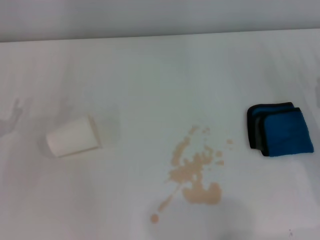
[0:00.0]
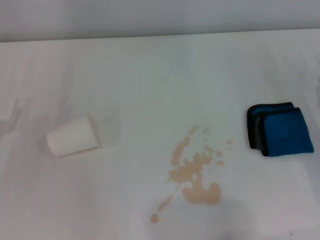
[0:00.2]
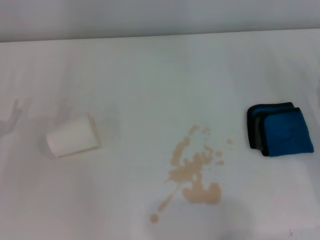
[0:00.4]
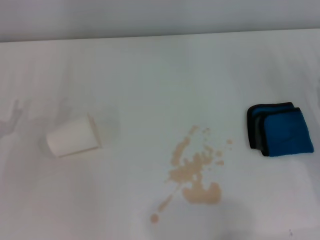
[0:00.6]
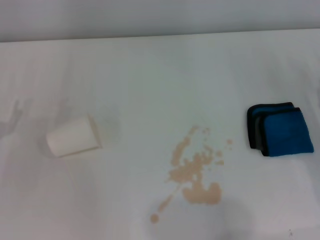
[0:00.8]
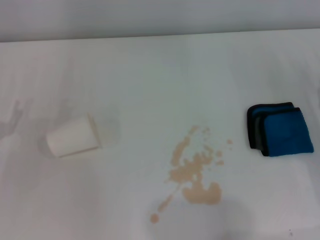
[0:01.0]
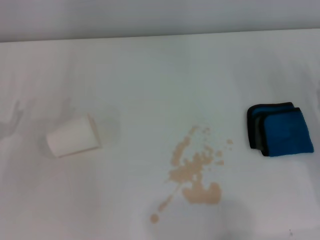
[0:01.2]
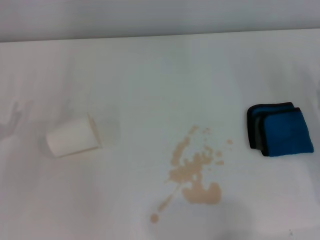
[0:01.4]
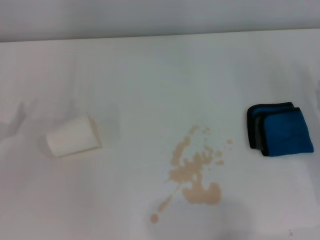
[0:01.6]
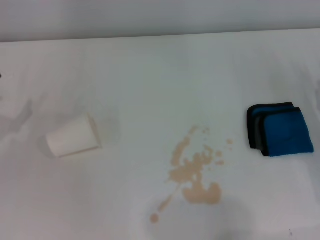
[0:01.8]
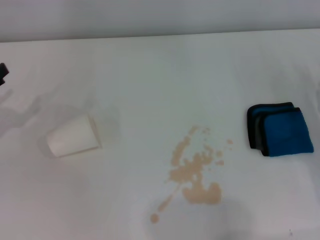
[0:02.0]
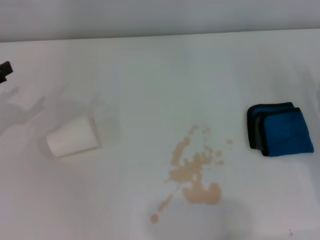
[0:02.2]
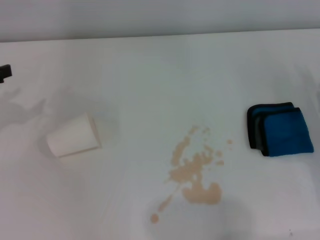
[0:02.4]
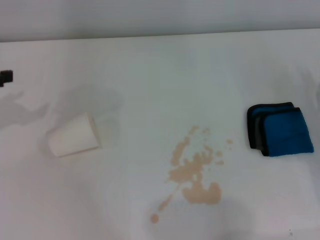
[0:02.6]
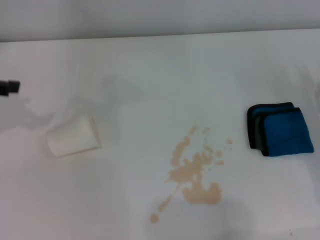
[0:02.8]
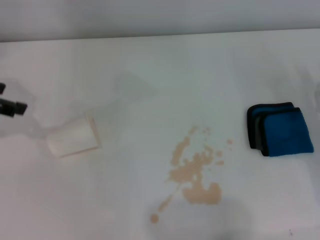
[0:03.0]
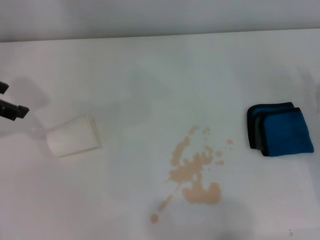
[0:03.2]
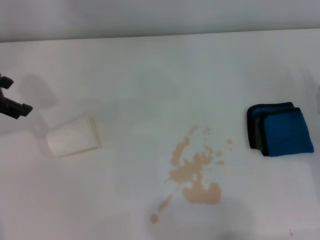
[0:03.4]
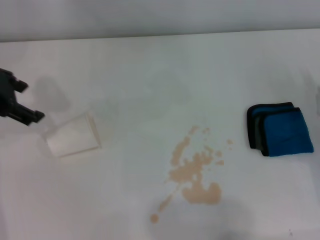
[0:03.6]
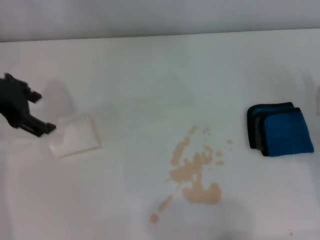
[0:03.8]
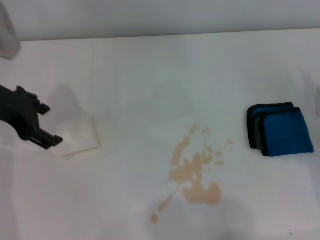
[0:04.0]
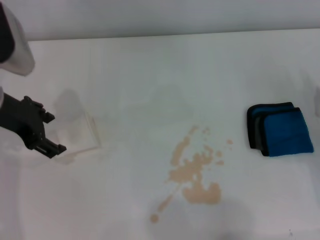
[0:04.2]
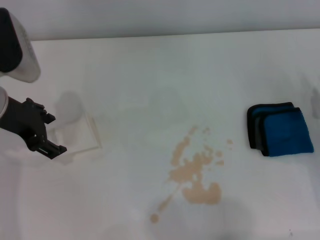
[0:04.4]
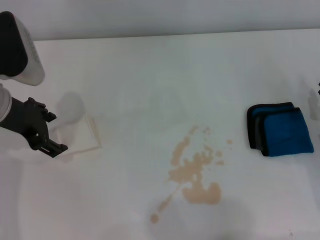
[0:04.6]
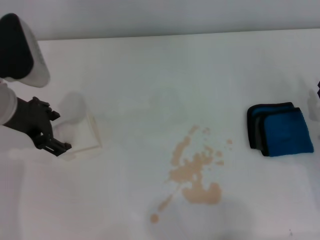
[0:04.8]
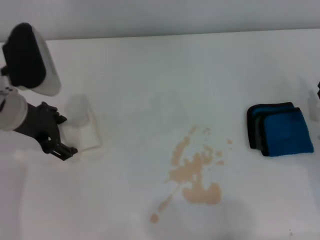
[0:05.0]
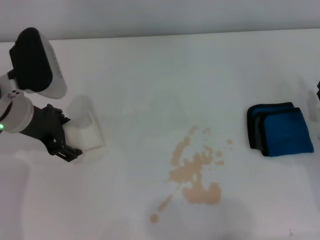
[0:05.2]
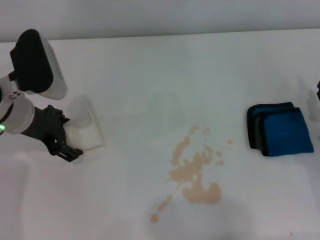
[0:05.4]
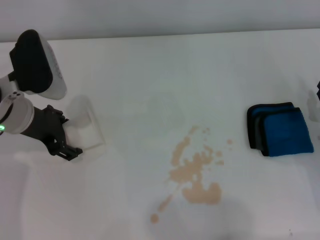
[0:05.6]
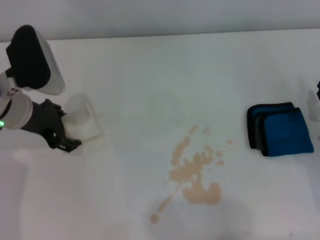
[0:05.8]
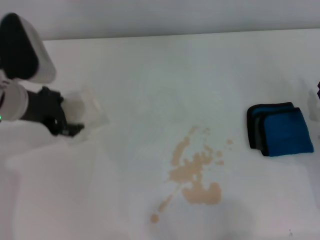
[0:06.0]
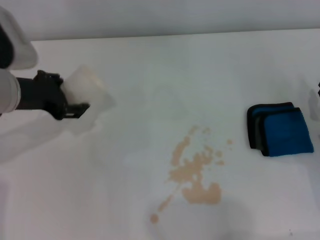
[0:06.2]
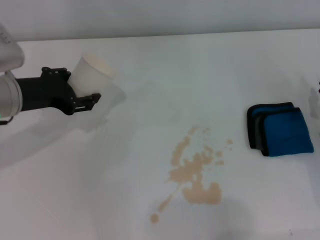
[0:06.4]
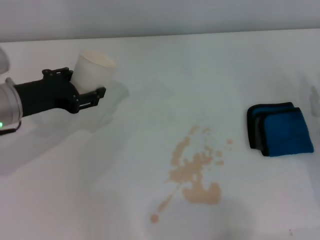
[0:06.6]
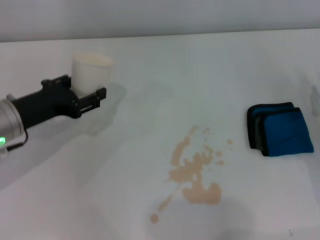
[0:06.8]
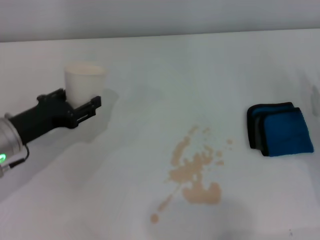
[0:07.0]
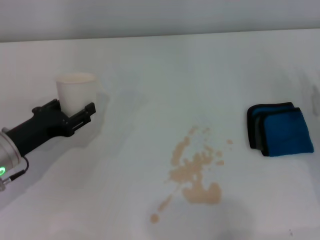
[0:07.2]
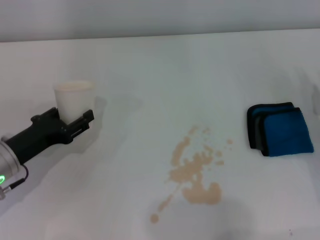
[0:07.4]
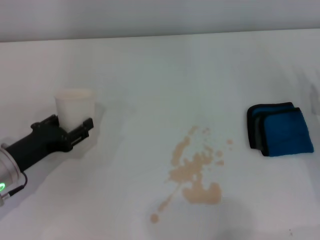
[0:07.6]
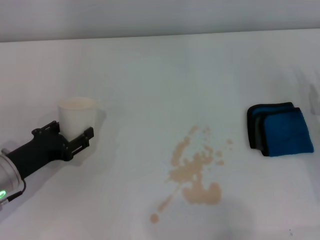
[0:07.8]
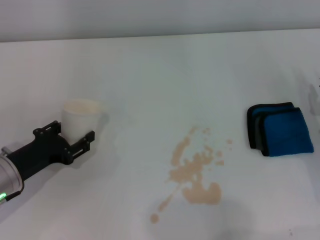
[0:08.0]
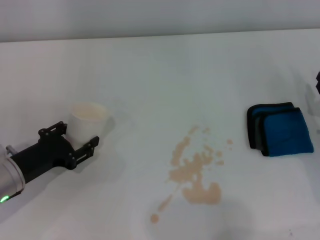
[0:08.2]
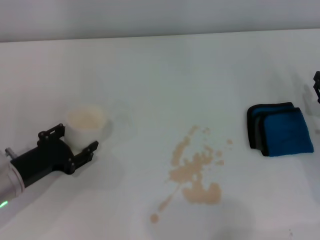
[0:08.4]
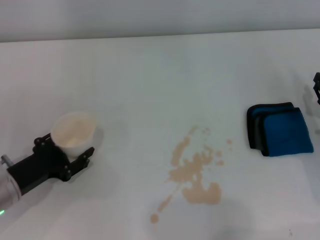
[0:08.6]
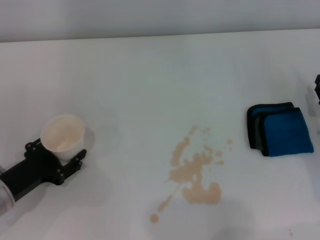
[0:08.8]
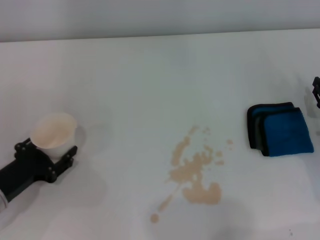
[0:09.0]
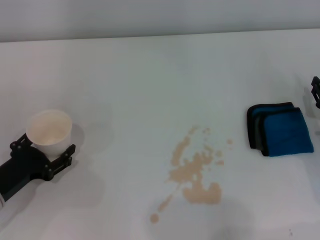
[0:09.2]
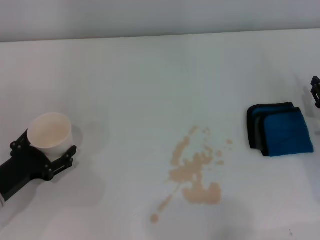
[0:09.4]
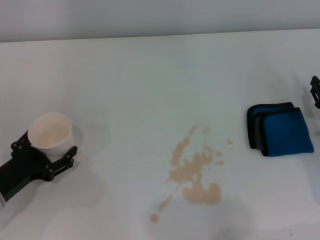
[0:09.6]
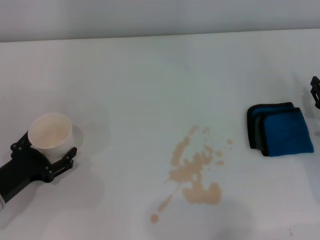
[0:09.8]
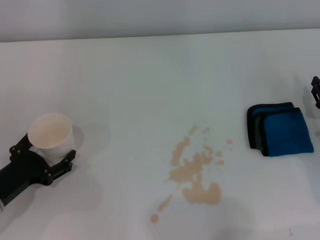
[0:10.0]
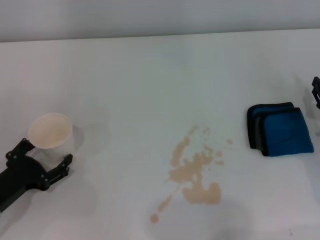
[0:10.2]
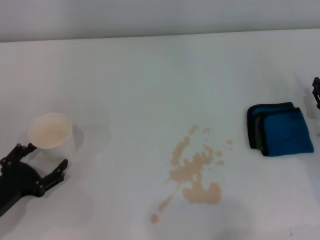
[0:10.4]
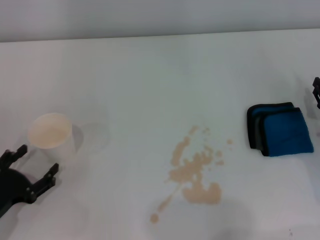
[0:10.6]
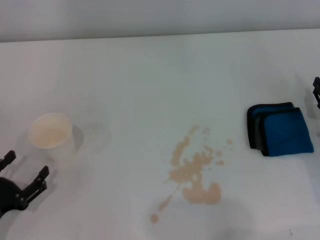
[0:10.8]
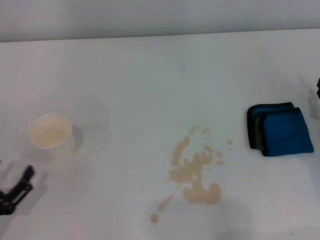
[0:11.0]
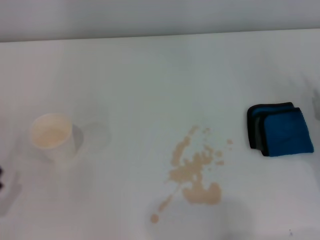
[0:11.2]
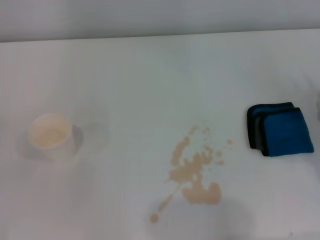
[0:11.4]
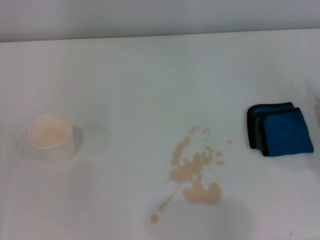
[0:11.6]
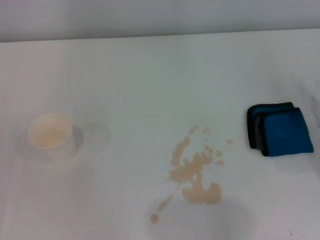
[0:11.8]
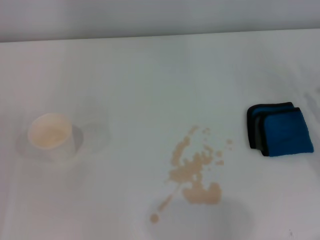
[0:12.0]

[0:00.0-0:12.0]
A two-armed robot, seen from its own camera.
Step, 0:00.0 to 0:05.4: Grasp the paper cup with the left gripper.
Step, 0:05.6 to 0:10.2: Stand the paper cup upright with the left gripper.
0:01.6 to 0:03.0: The left gripper goes some 20 cm upward and forward.
0:03.0 to 0:04.4: The left gripper is displaced to the right and downward by some 10 cm.
0:04.4 to 0:06.0: The left gripper closes up.
0:06.0 to 0:07.6: The left gripper shifts some 15 cm downward and backward.
0:07.6 to 0:09.0: The left gripper ends up approximately 5 cm from where it was.
0:09.0 to 0:10.4: The left gripper opens its fingers.
0:10.4 to 0:12.0: The left gripper is displaced to the left by some 5 cm.

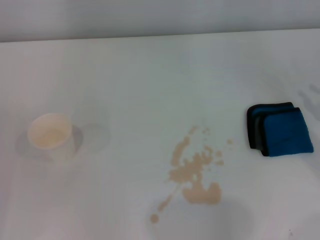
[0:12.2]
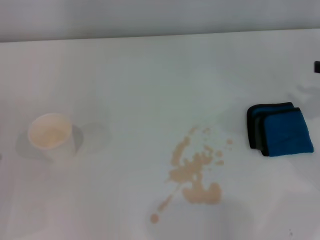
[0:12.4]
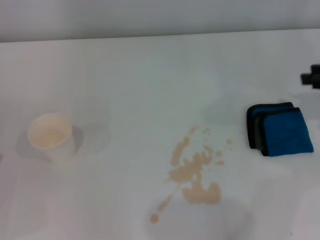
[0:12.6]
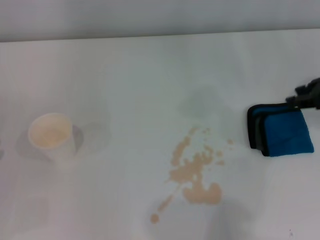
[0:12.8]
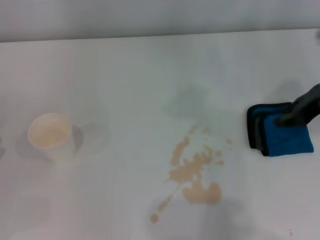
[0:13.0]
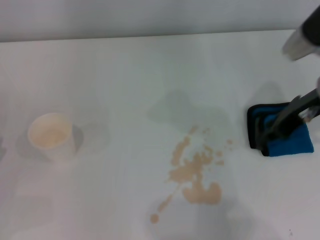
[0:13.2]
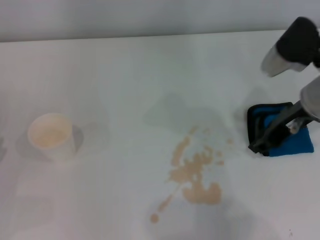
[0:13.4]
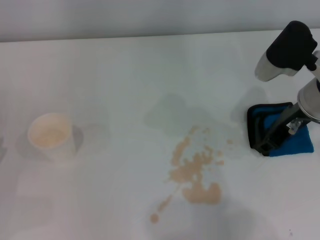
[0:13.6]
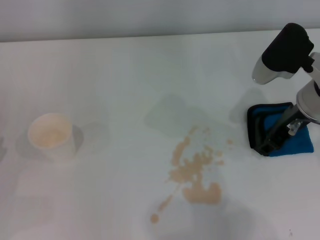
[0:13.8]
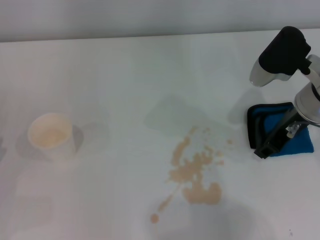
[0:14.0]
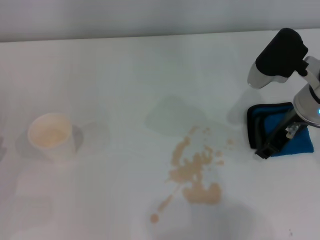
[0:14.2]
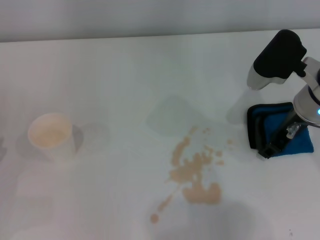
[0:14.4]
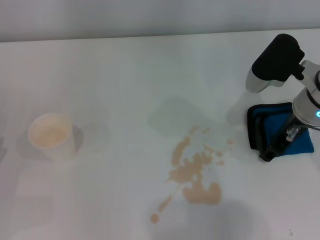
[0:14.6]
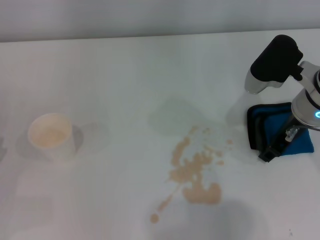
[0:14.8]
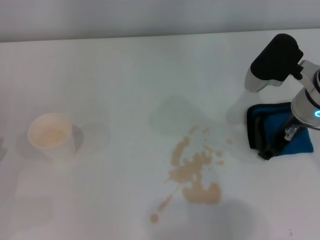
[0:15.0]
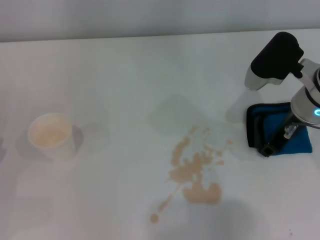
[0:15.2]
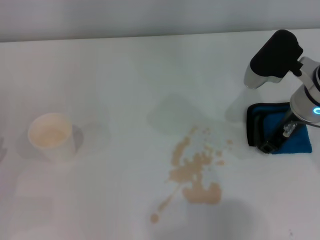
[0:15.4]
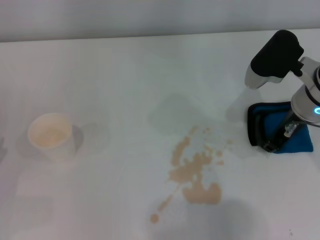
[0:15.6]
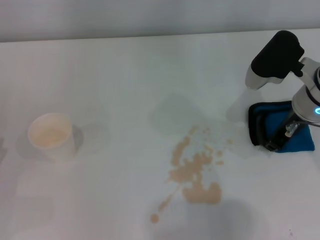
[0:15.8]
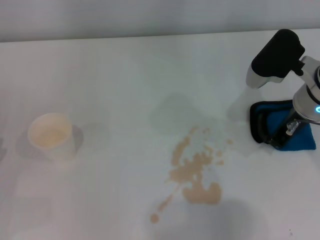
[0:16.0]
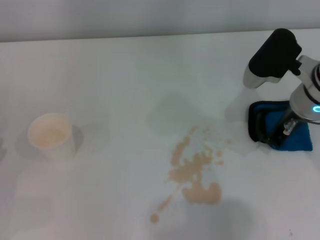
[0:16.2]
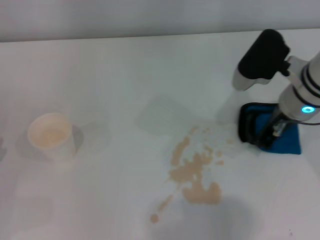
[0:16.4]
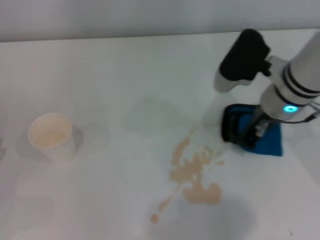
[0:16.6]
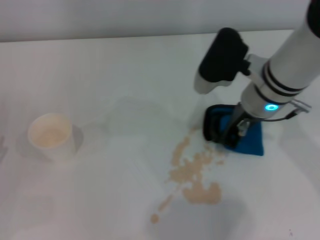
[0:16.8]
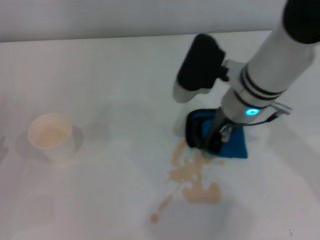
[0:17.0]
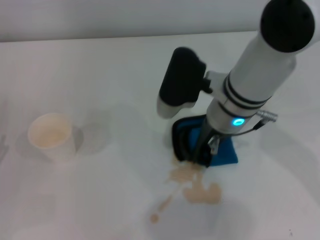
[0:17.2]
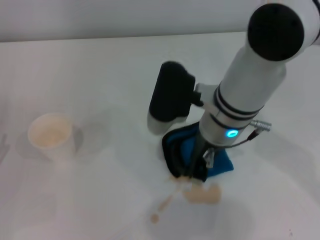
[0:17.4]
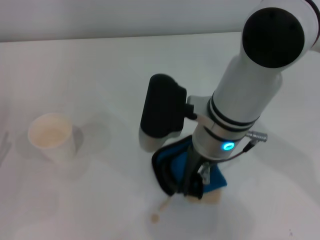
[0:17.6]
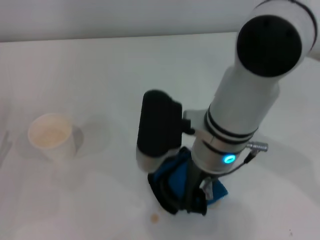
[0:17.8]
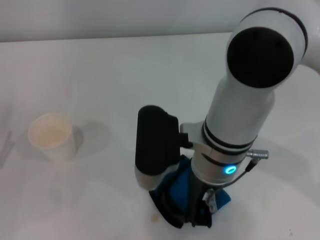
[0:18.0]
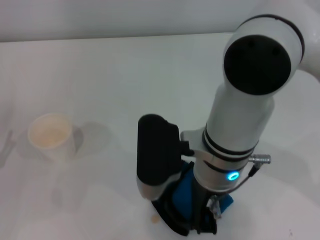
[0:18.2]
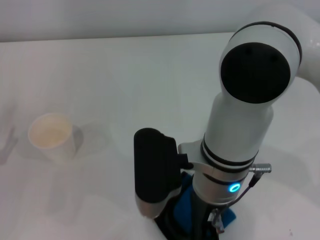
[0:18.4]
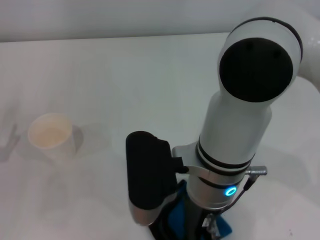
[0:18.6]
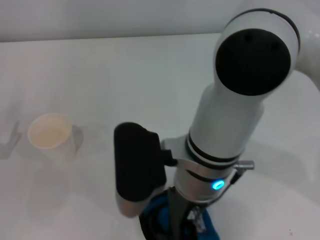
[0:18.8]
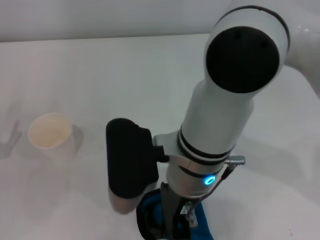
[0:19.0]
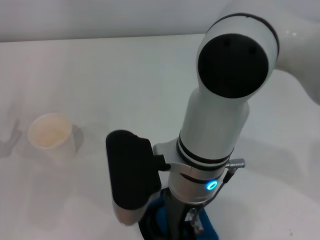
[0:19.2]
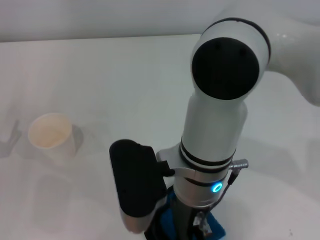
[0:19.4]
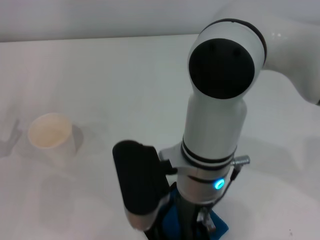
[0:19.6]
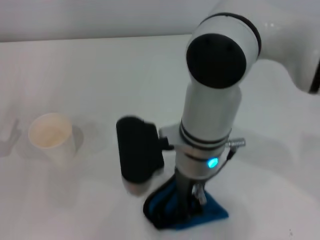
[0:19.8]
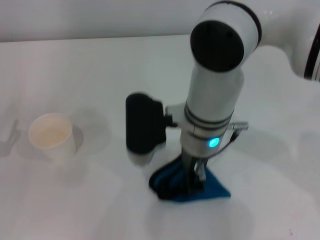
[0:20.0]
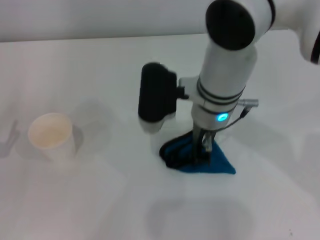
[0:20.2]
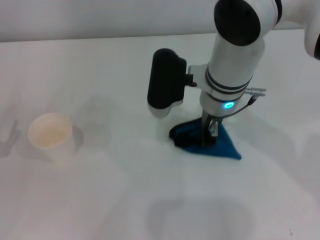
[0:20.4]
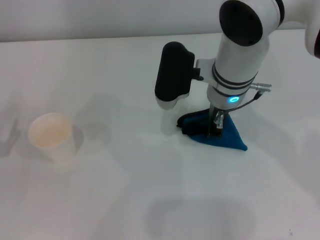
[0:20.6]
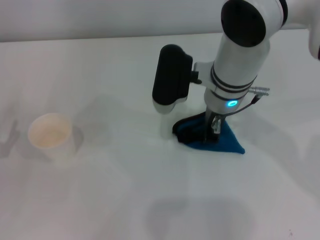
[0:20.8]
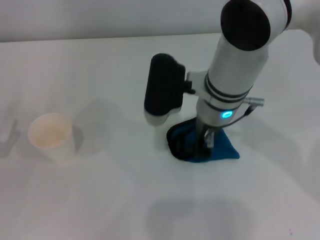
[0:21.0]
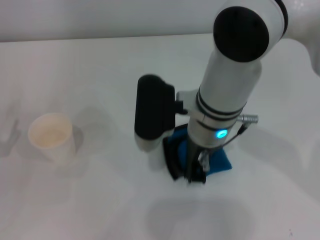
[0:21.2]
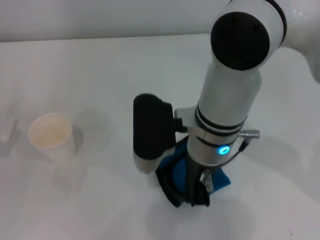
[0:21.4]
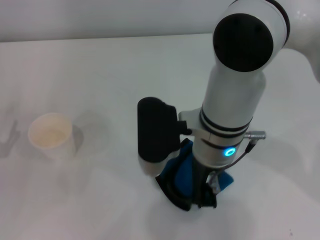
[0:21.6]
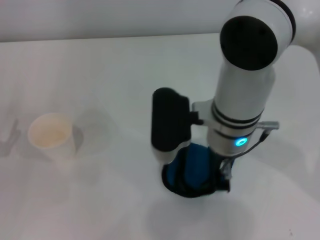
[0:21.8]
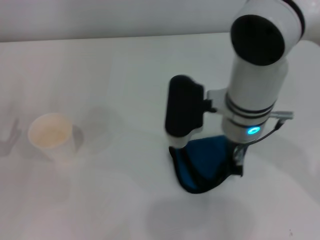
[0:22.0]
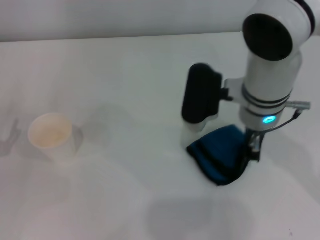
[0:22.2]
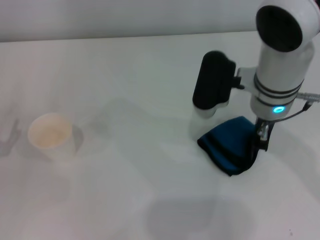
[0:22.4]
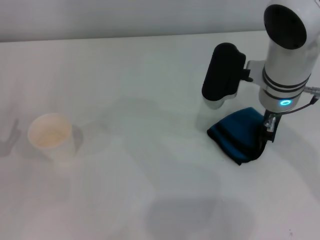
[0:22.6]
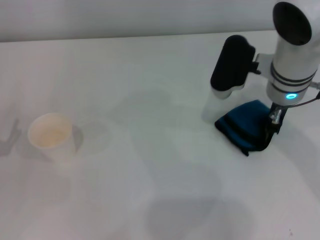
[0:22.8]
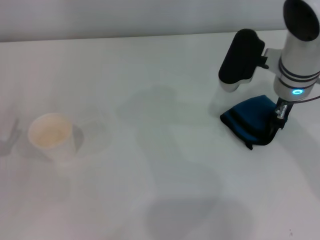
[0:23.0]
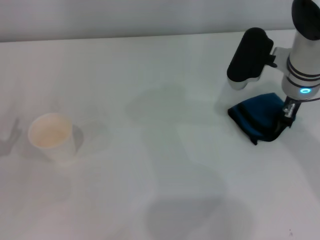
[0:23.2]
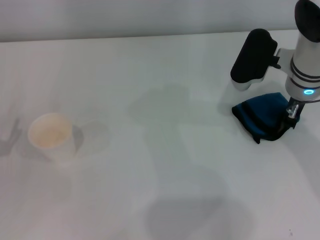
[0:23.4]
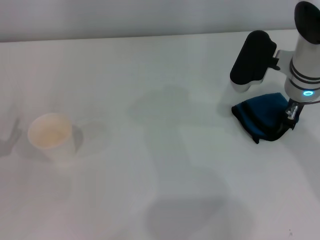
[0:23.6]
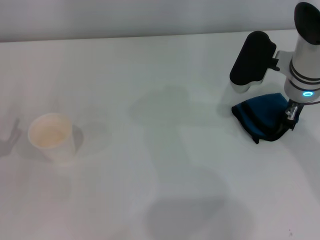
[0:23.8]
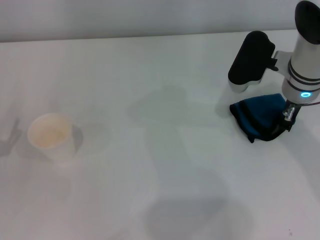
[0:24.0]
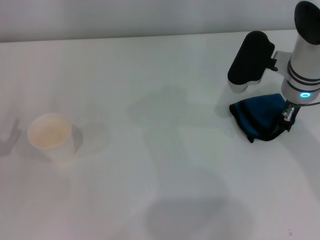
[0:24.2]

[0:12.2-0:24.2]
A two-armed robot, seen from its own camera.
Step, 0:12.2 to 0:16.0: Grasp the rag with the right gripper.
0:12.2 to 0:13.8: The right gripper is displaced to the left and forward by approximately 20 cm.
0:13.8 to 0:15.2: There are only small adjustments of the grippers.
0:15.2 to 0:16.6: The right gripper closes its fingers.
0:16.6 to 0:18.2: The right gripper shifts roughly 15 cm to the left and backward.
0:21.2 to 0:22.6: The right gripper travels to the right by roughly 10 cm.
0:22.6 to 0:24.2: The grippers stay close to where they were, moving slightly.
